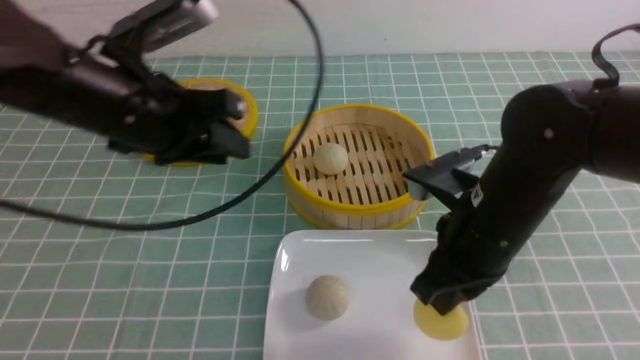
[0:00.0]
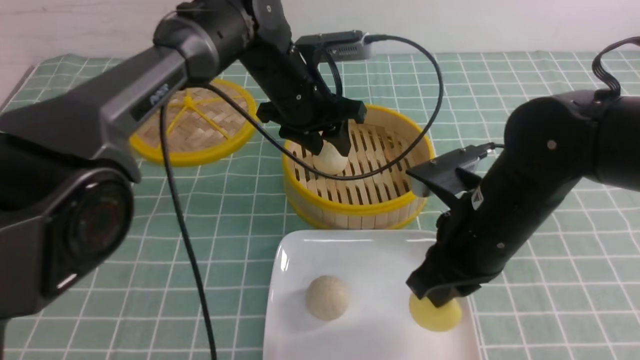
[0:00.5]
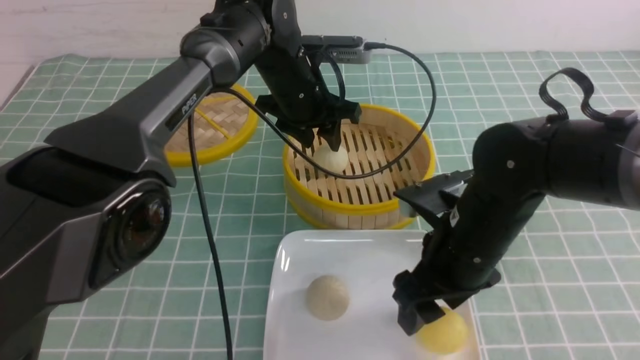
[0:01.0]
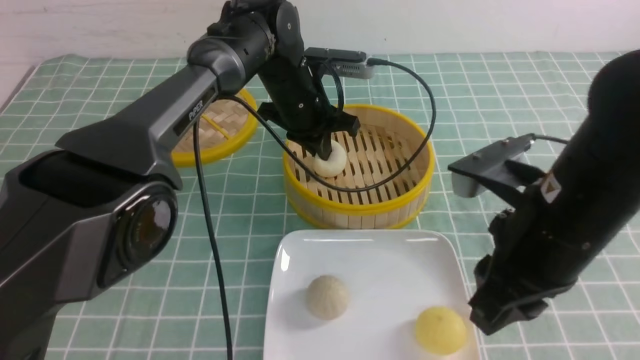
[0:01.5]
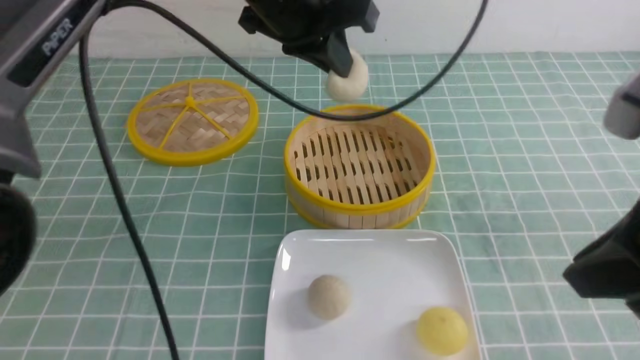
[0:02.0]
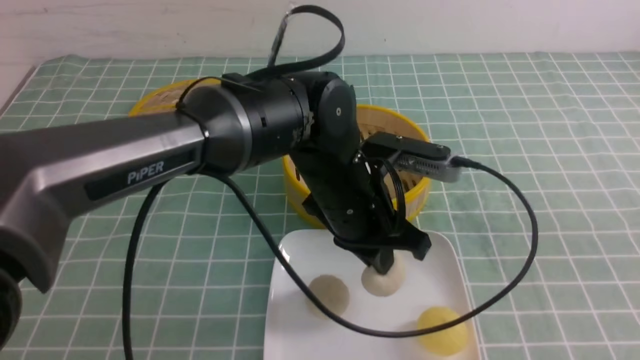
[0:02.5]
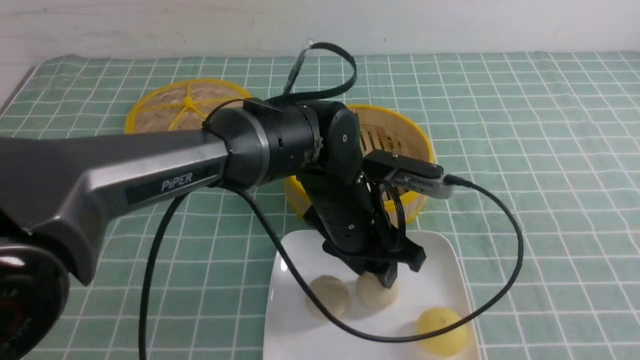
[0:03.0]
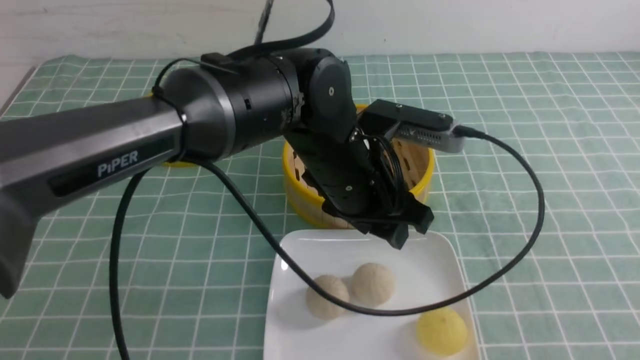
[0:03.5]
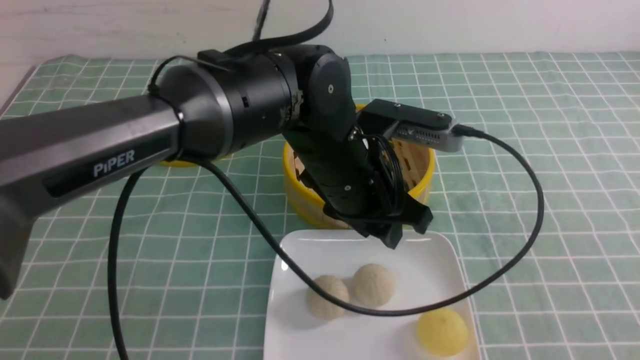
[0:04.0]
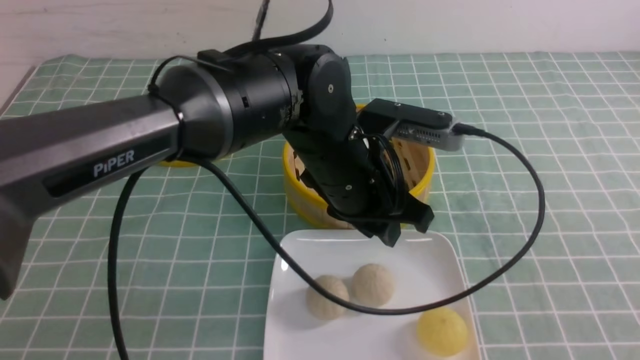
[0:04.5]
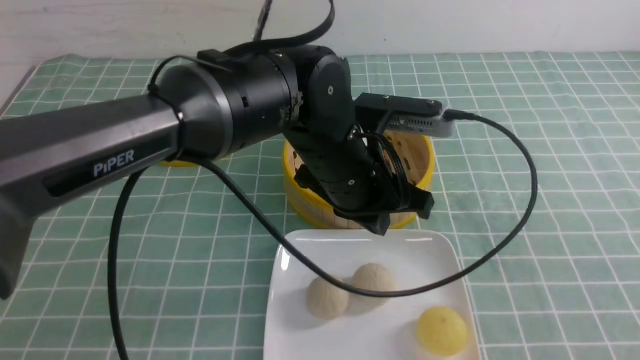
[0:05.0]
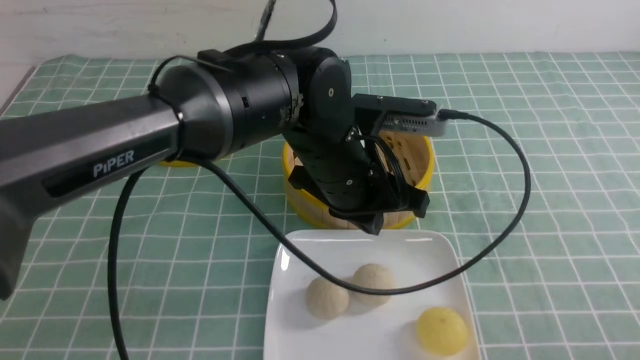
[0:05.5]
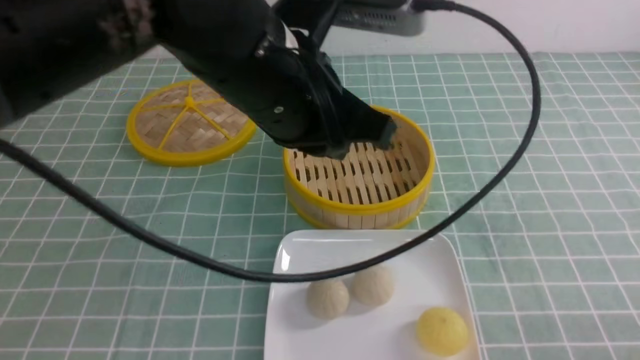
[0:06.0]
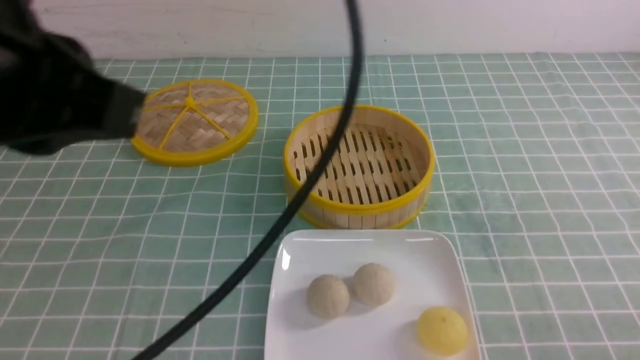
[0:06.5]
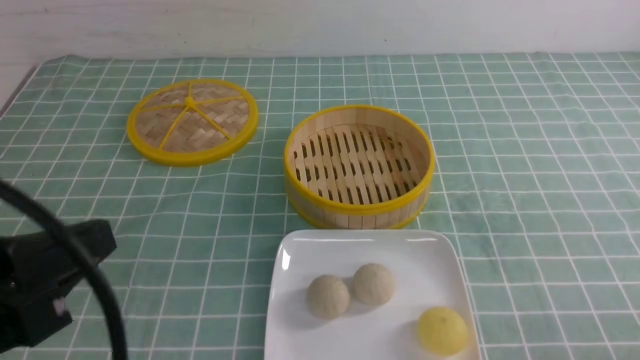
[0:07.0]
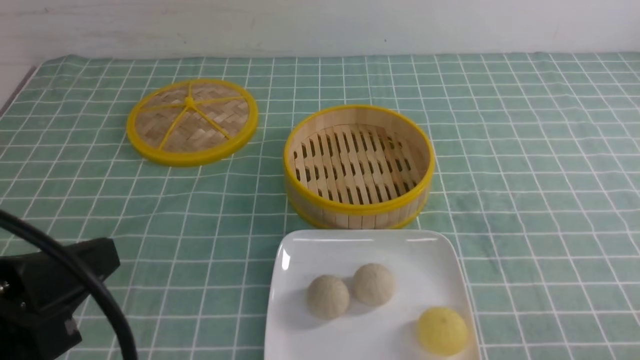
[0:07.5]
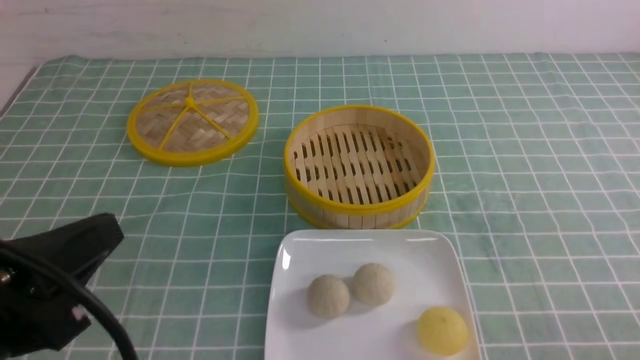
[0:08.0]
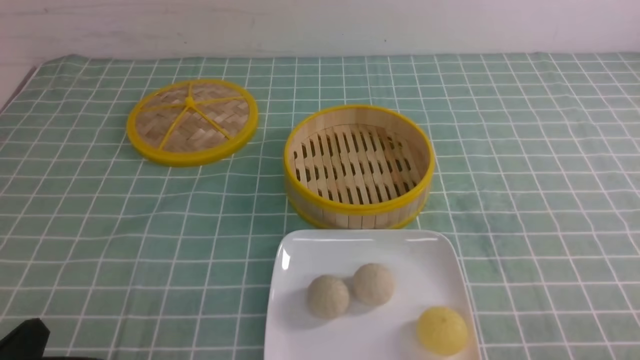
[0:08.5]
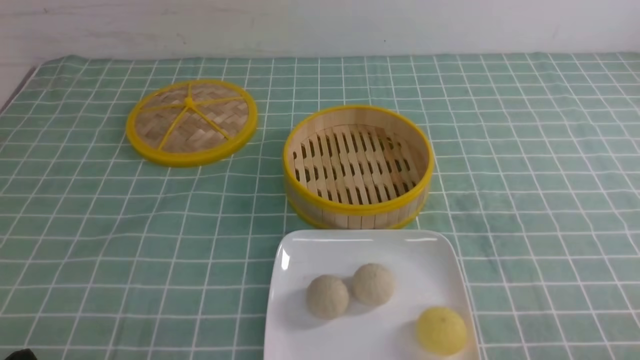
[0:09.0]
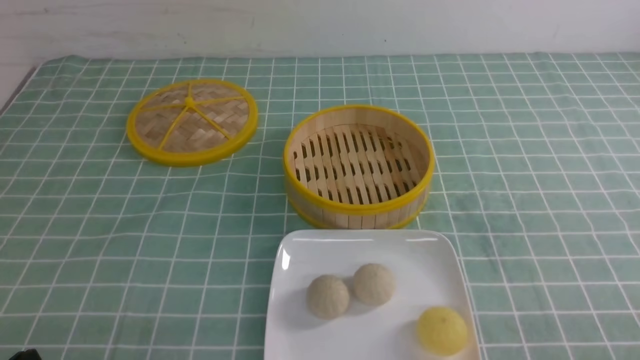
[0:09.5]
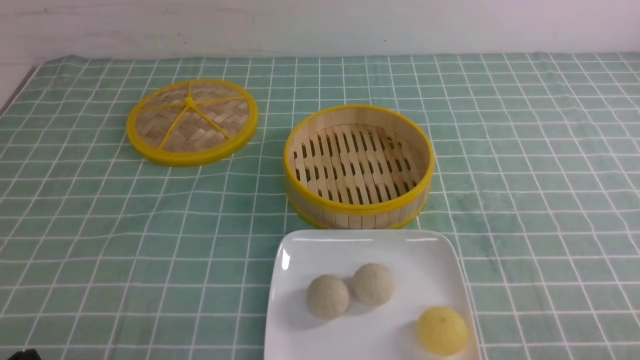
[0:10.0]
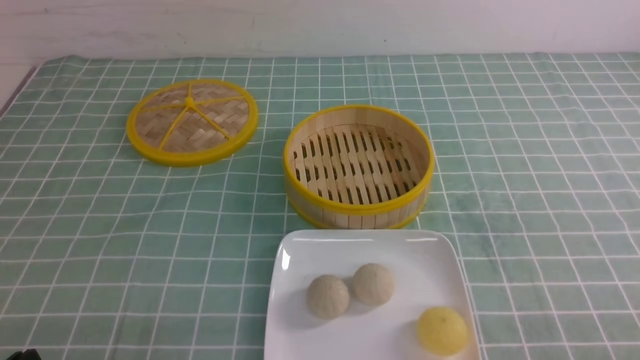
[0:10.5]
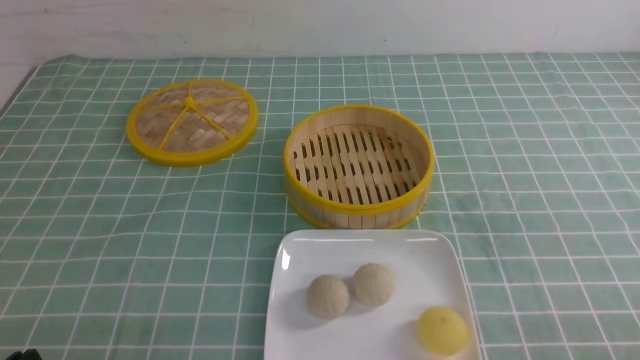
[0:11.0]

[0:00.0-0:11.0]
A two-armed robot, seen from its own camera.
Step, 0:01.0 to 0:01.5: use the left arm to grab the steamed stuffed bun that is closest to it.
Step, 0:02.0 to 0:03.0: use the left arm to put the steamed stuffed bun into the plate.
0:00.0 to 0:02.0: The right gripper shifts some 20 cm upward, backward and to the right, and opens, then closes again, while the left gripper shifts about 15 cm to the right and forward, and closes its fingers.
0:02.0 to 0:03.5: The right gripper travels backward and to the right by roughly 25 cm. Meanwhile the left gripper is displaced downward and backward by roughly 10 cm, and opens up.
0:03.5 to 0:05.5: The right gripper heads downward and forward, covering about 20 cm, while the left gripper closes.
0:05.5 to 0:07.5: The left gripper heads to the left and backward, covering approximately 30 cm.
0:07.5 to 0:09.0: The left gripper travels downward by some 15 cm.
0:09.0 to 0:11.0: Both grippers stay about where they are.
